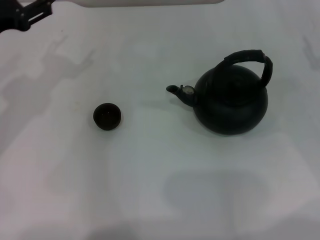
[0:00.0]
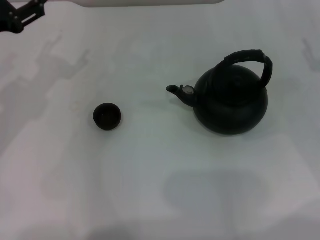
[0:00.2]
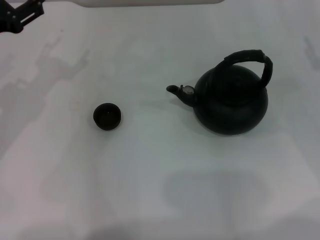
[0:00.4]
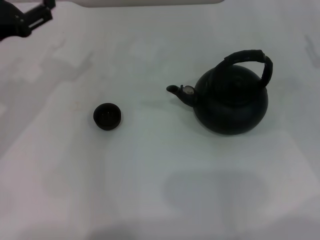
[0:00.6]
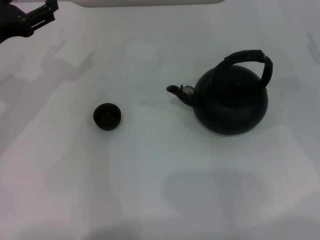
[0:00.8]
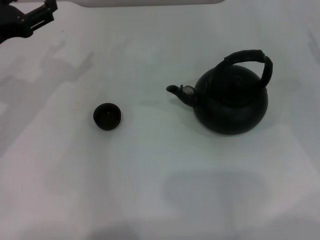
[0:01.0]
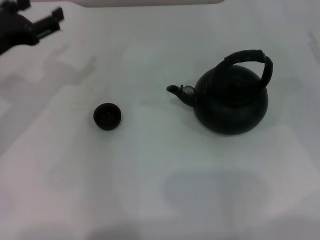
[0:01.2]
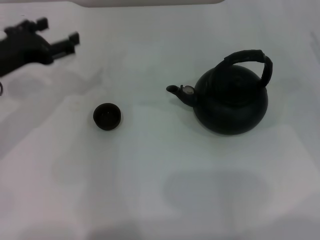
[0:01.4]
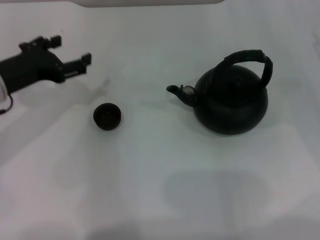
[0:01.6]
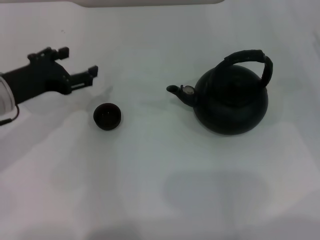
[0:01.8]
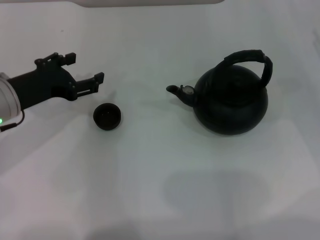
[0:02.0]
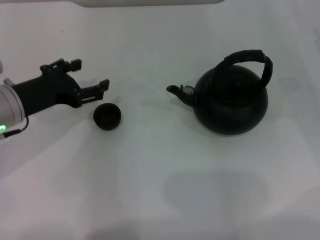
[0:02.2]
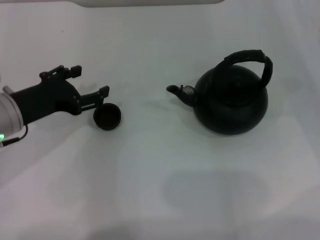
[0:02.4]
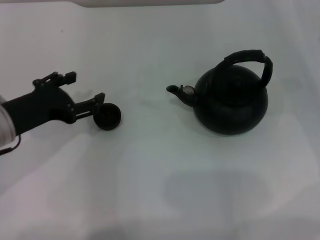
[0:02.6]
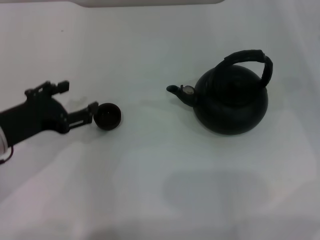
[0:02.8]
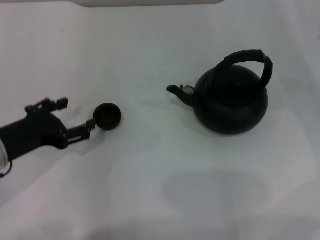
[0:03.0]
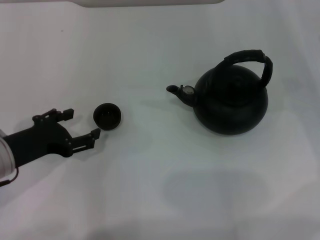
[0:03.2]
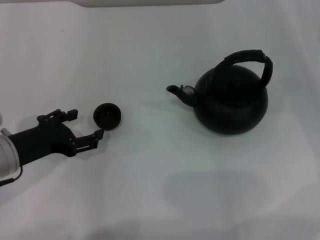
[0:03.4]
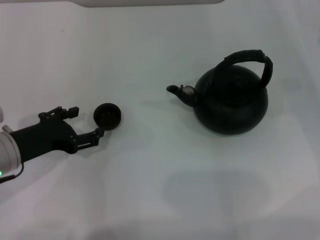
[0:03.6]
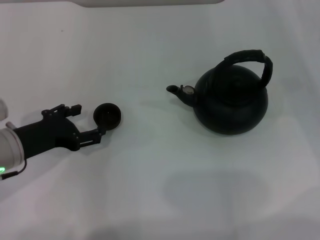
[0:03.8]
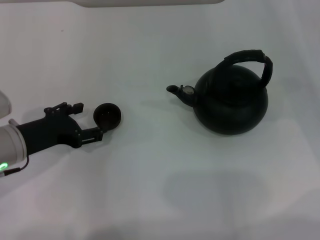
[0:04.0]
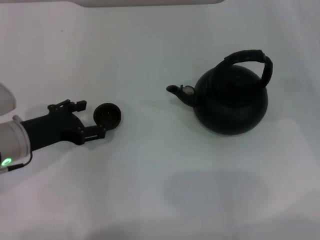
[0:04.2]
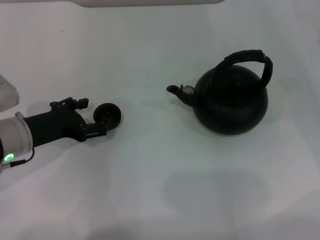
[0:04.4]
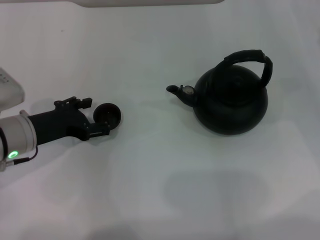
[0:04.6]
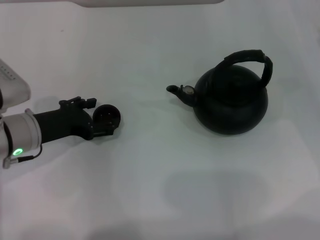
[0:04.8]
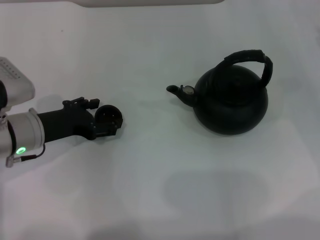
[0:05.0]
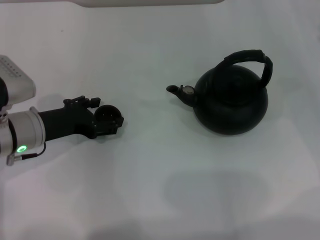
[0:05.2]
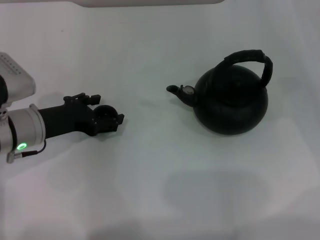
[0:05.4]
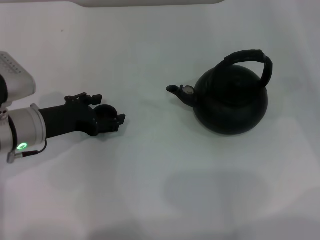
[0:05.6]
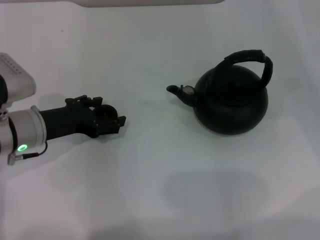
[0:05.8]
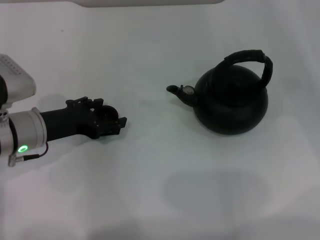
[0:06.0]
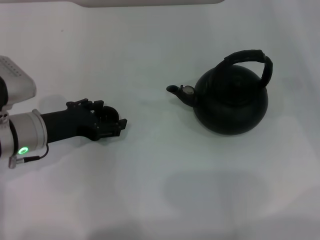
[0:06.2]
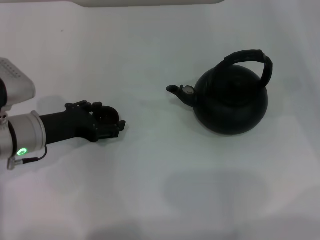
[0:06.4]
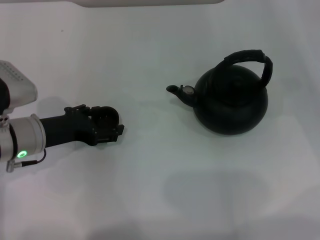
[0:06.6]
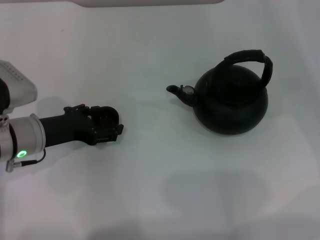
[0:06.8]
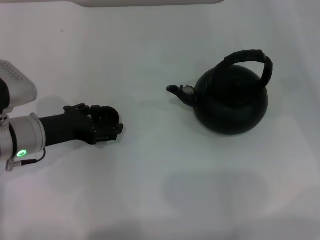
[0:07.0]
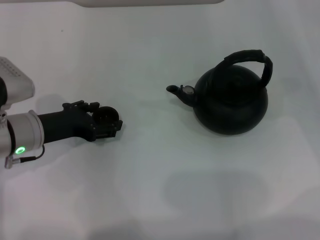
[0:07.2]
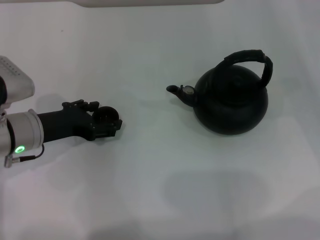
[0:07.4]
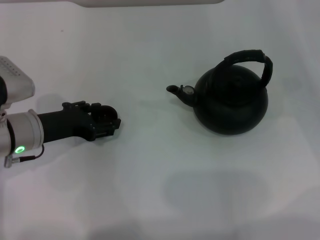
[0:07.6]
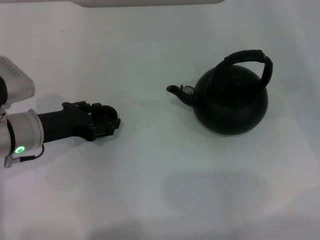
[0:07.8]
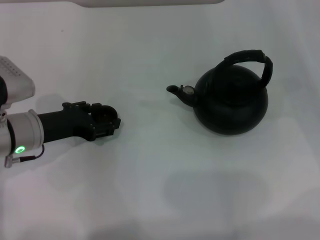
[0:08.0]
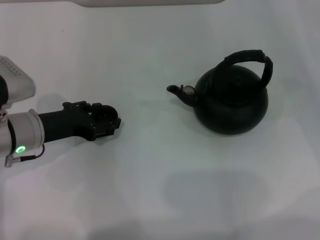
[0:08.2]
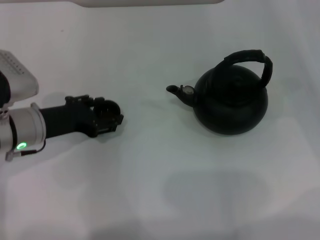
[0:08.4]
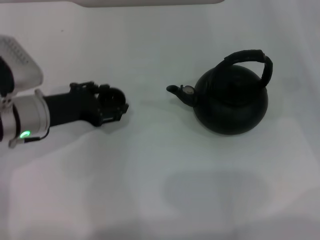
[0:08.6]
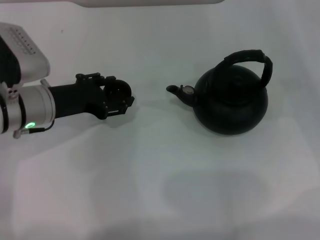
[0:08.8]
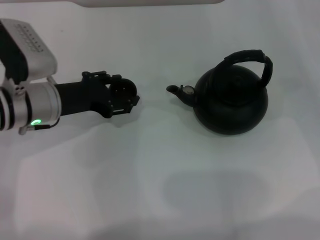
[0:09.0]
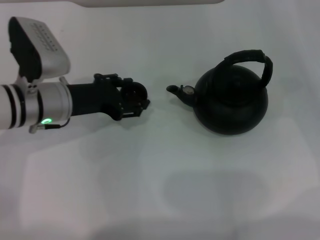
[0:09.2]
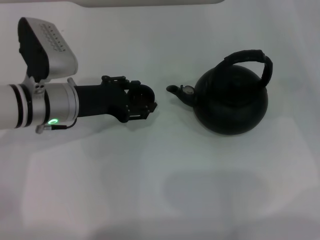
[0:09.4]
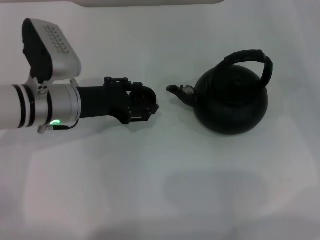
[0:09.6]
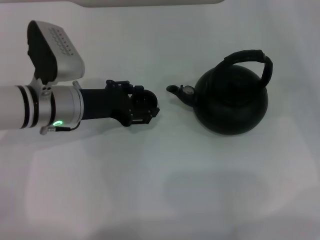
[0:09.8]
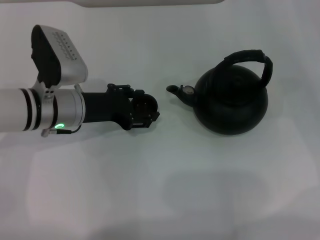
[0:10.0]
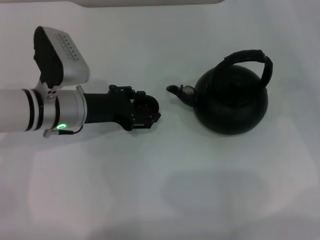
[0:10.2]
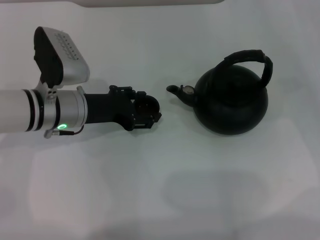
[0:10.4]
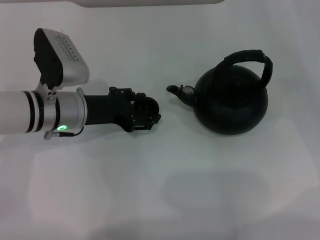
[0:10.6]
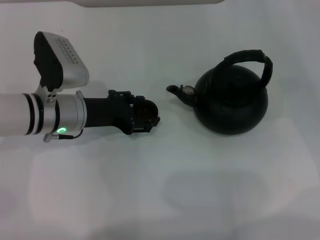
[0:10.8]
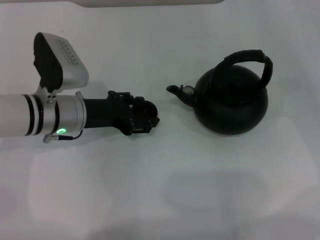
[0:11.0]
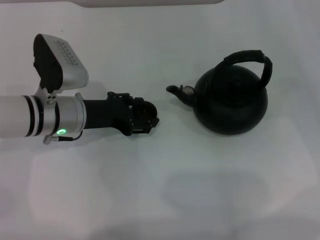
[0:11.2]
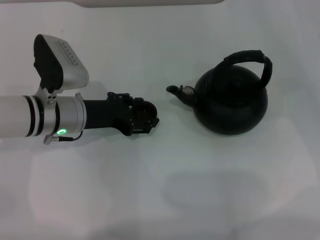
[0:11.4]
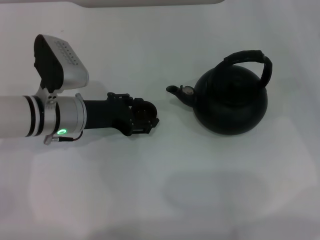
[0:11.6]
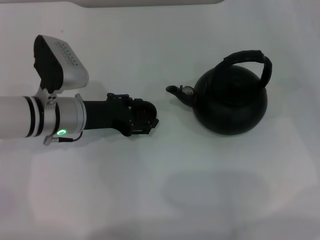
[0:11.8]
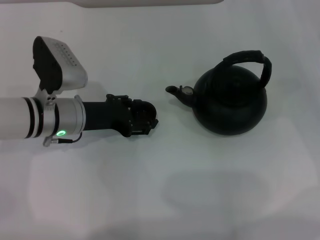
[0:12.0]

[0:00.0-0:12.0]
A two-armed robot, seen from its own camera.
Task of the whole recording: Grasp the handle of the teapot with one hand and pour tea into the teacup.
Step, 0:00.0 to 0:08.4: Pick up the teacup with the left gripper.
0:01.6 to 0:03.0: The left gripper is displaced backward by roughly 5 cm.
0:03.0 to 0:04.4: The grippers move only a little.
0:04.4 to 0:06.0: The grippers move only a little.
0:06.0 to 0:07.6: Neither gripper changes place.
0:07.6 to 0:09.0: The left gripper moves about 5 cm, and closes.
0:09.0 to 0:12.0: The grippers move only a little.

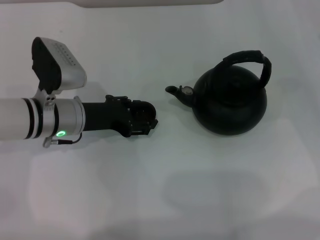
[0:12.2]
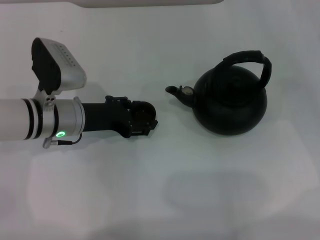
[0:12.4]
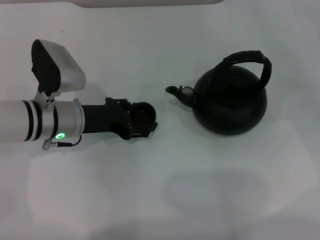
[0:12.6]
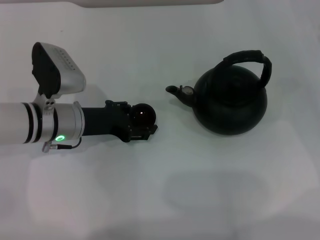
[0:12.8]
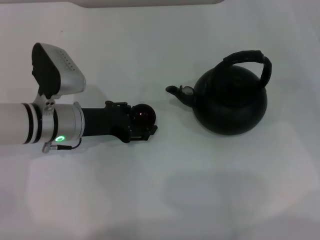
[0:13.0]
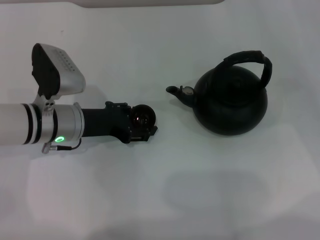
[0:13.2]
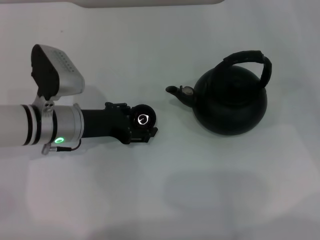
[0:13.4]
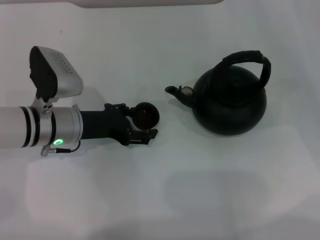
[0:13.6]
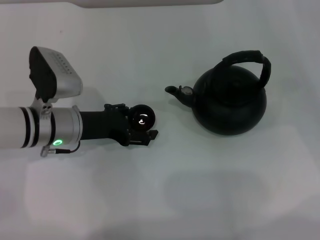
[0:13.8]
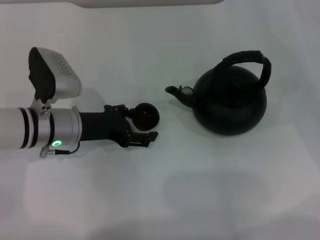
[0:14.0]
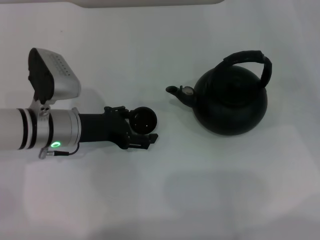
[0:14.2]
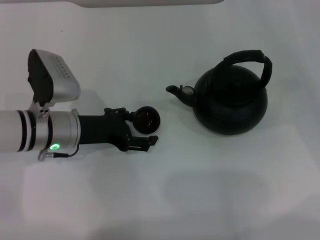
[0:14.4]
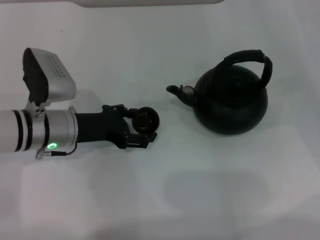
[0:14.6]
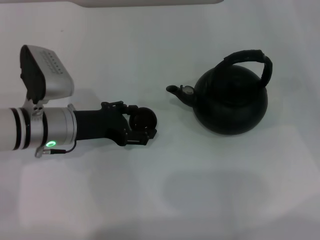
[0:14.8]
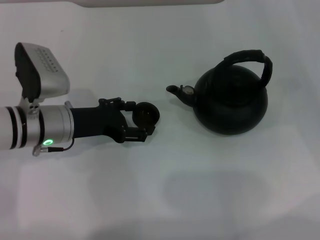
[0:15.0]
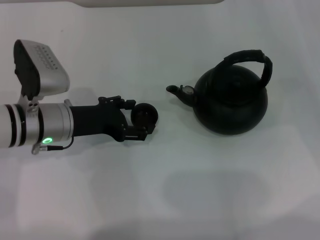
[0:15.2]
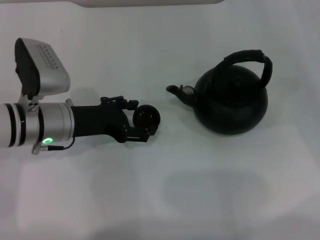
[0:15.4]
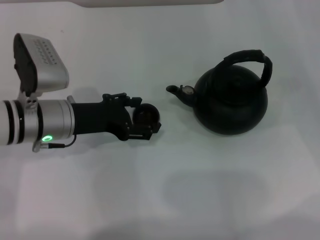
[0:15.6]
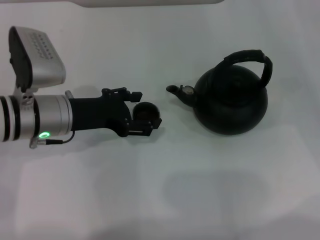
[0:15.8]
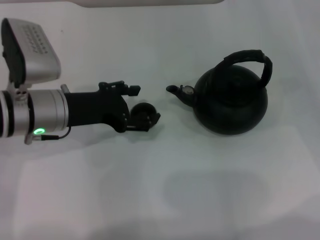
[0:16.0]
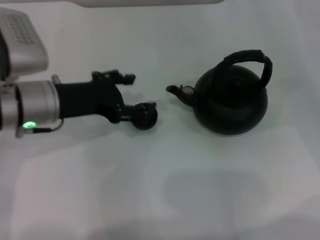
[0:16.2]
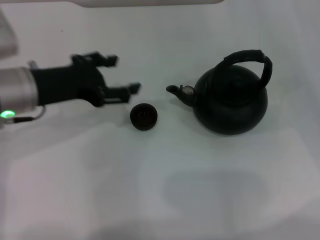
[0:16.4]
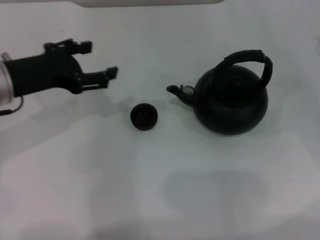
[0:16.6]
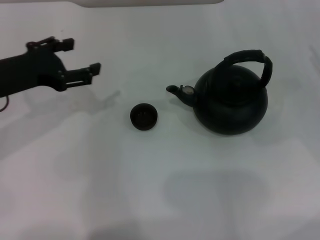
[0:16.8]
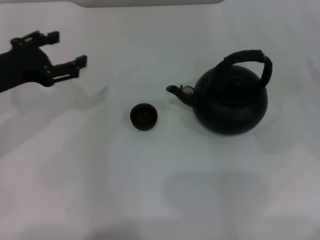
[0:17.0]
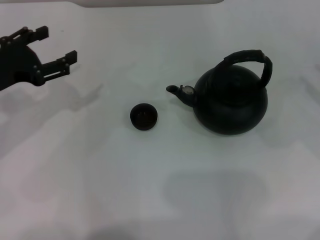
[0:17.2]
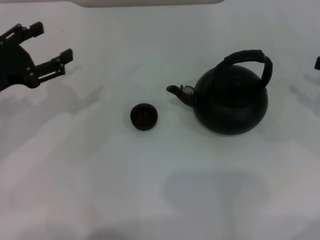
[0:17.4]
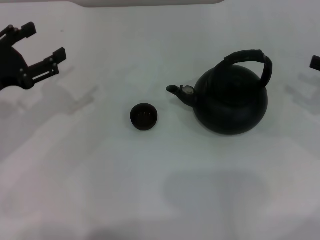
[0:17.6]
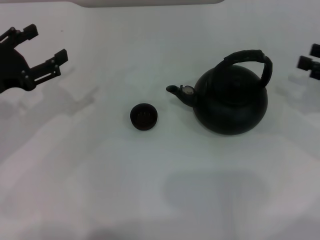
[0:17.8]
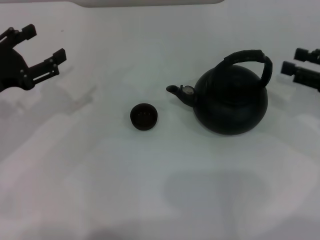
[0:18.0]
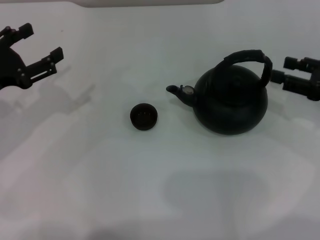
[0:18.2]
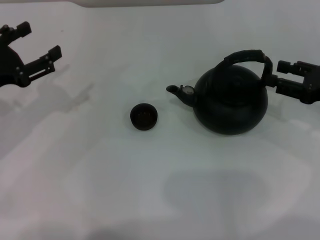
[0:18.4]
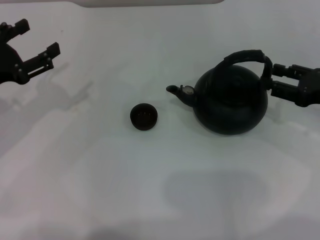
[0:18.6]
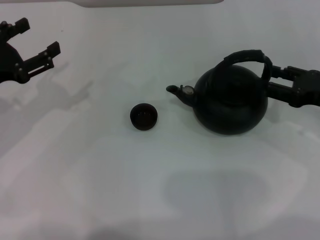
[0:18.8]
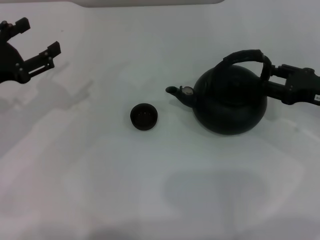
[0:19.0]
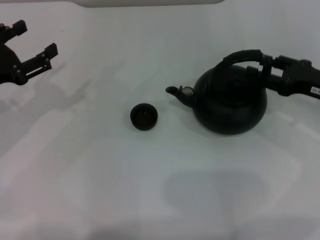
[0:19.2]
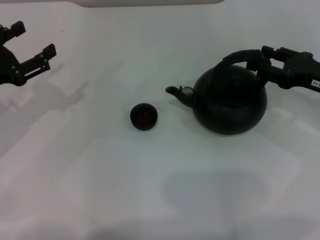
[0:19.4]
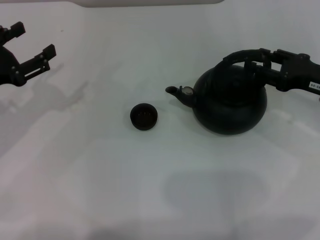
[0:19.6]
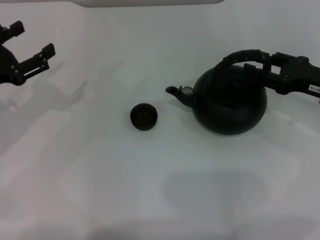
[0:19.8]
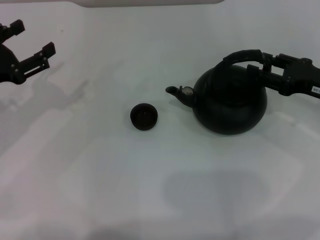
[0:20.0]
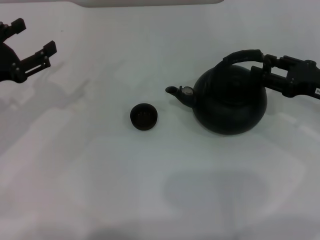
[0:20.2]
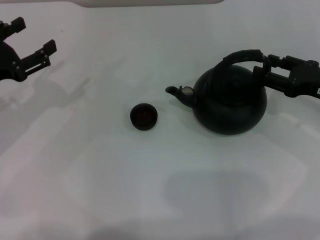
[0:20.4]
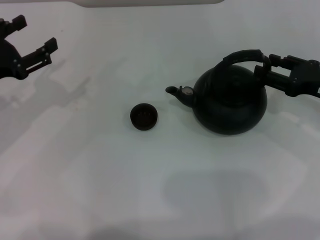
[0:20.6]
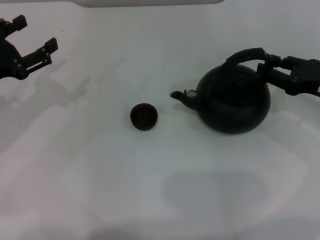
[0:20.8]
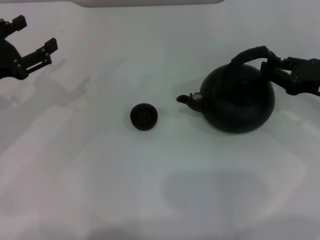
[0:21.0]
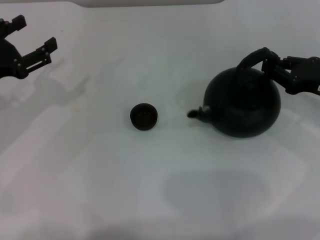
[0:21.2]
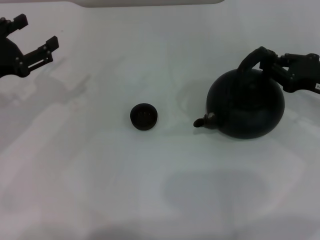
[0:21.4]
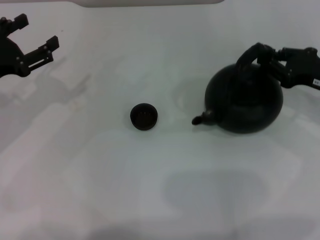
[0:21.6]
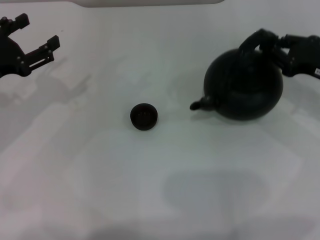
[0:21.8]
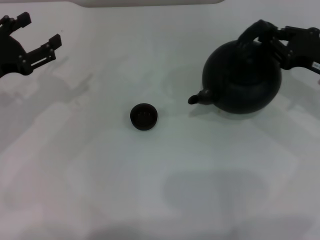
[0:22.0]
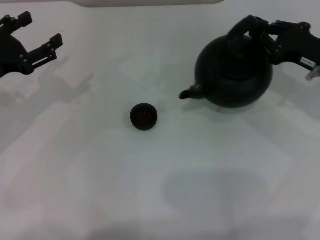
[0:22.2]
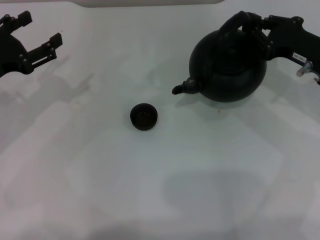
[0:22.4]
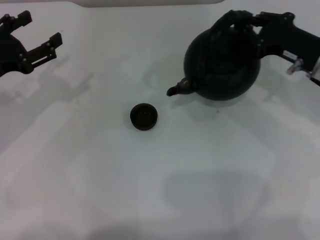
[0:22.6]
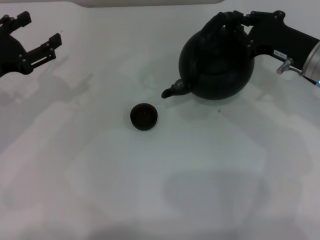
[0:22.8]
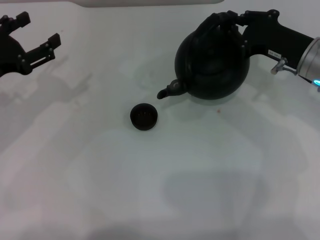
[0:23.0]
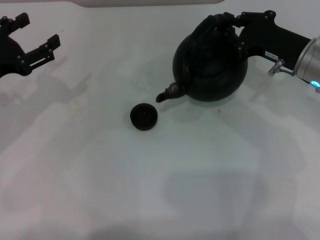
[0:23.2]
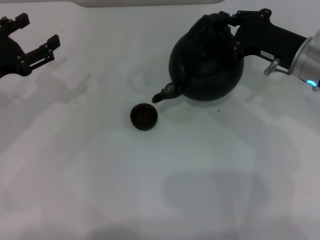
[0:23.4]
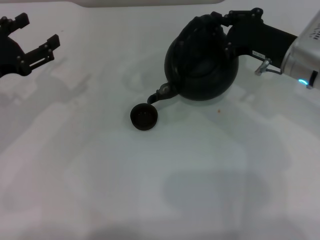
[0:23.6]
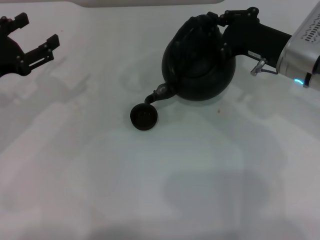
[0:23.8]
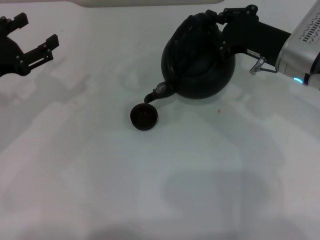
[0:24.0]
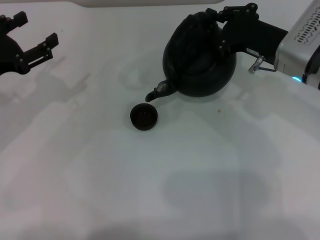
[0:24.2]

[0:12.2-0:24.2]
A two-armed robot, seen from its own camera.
Task of the whole recording: Grasp the handle of the teapot with one hand and pour tea into the teacup.
Step, 0:12.2 to 0:16.2: Place the teacup in the center of view with the left gripper.
Step, 0:16.6 to 0:22.2: Pick up the teapot with the right gripper.
0:12.2 to 0:13.8: The left gripper opens up.
0:13.8 to 0:15.2: The grippers stay close to where they were, moving slightly.
0:15.2 to 0:16.6: The left gripper moves upward and to the left, some 10 cm.
0:16.6 to 0:18.2: The left gripper heads to the left, covering approximately 5 cm.
0:18.2 to 0:19.8: The grippers stay close to where they were, moving slightly.
0:19.8 to 0:21.2: The right gripper closes its fingers.
0:21.2 to 0:22.6: The right gripper shifts roughly 5 cm to the left.
0:22.6 to 0:24.2: The right gripper moves to the left, roughly 5 cm.
